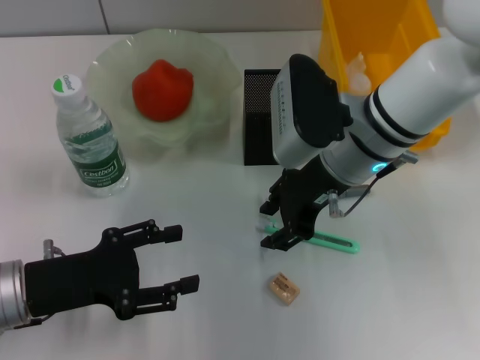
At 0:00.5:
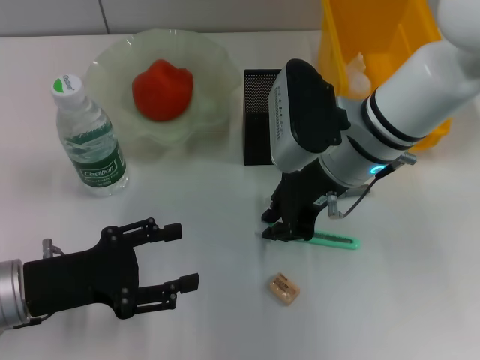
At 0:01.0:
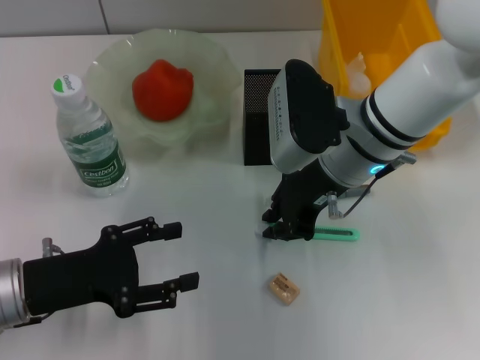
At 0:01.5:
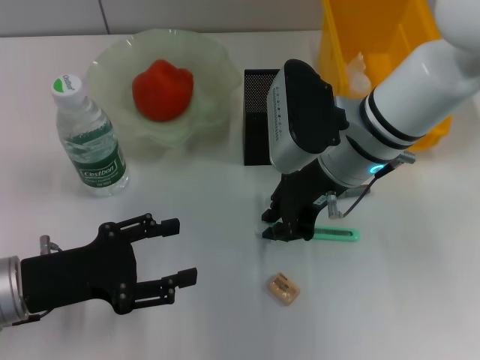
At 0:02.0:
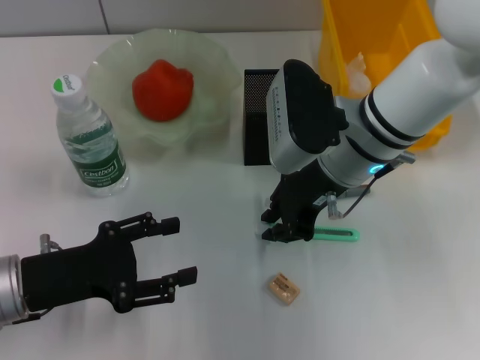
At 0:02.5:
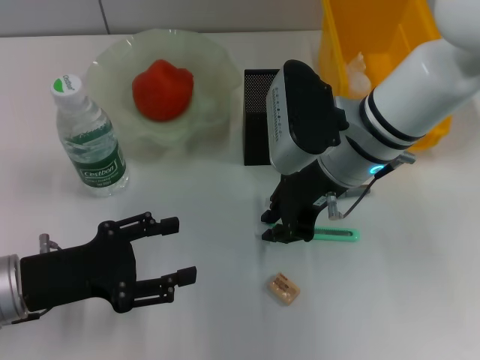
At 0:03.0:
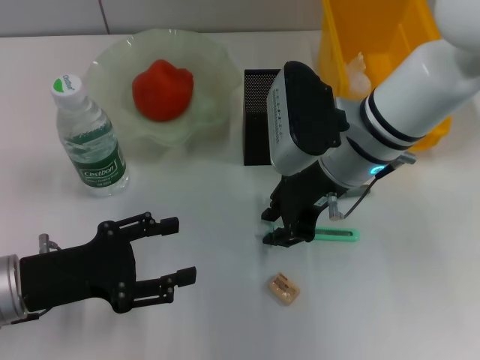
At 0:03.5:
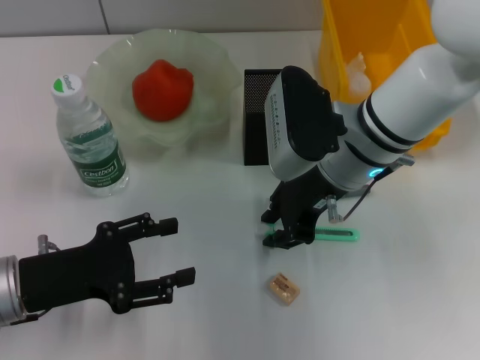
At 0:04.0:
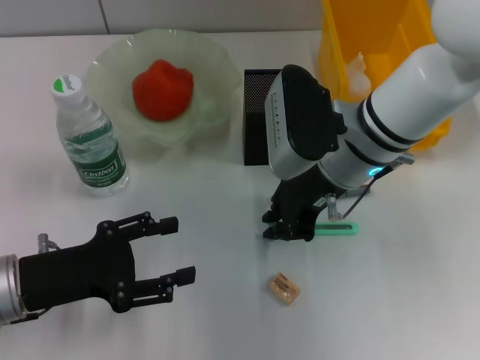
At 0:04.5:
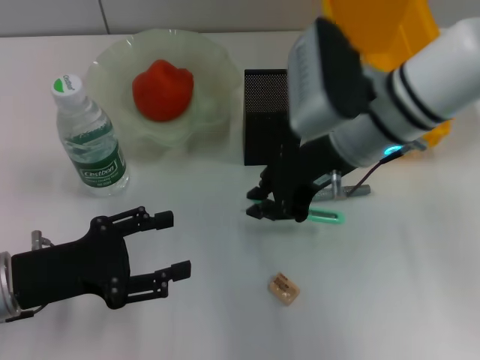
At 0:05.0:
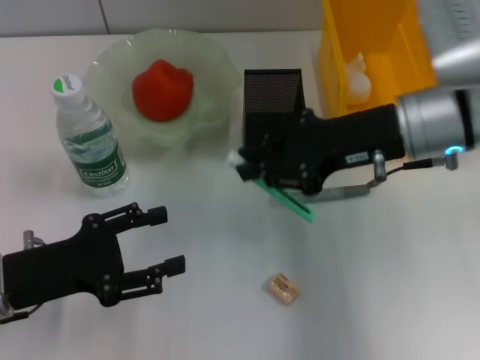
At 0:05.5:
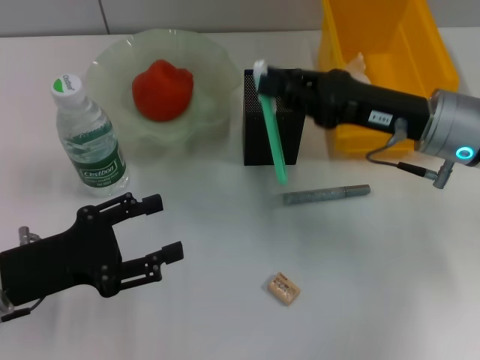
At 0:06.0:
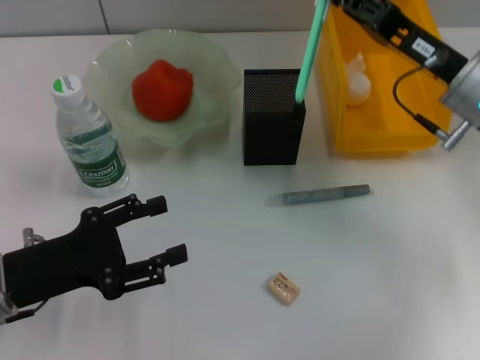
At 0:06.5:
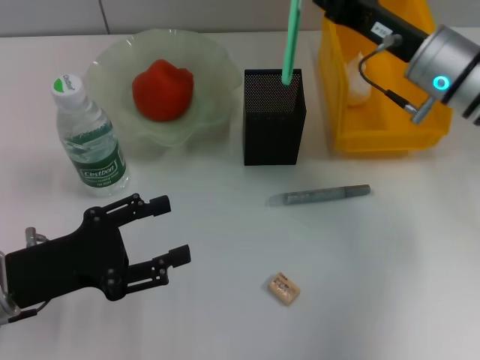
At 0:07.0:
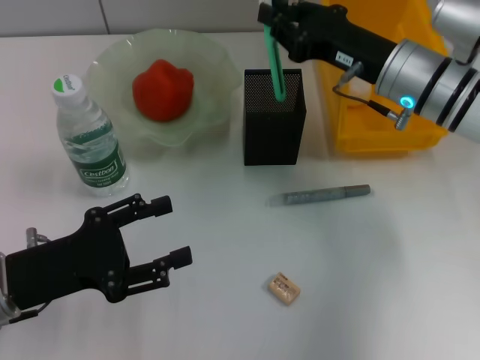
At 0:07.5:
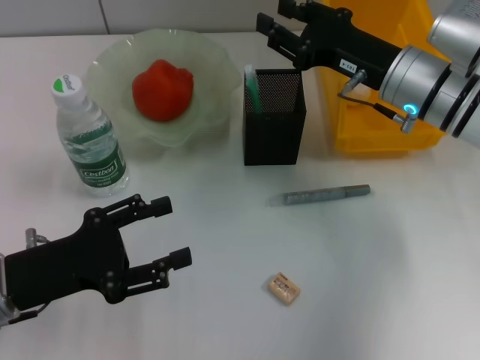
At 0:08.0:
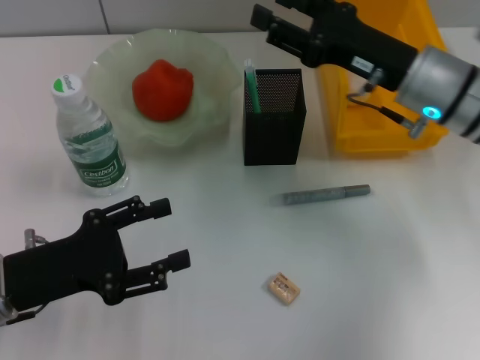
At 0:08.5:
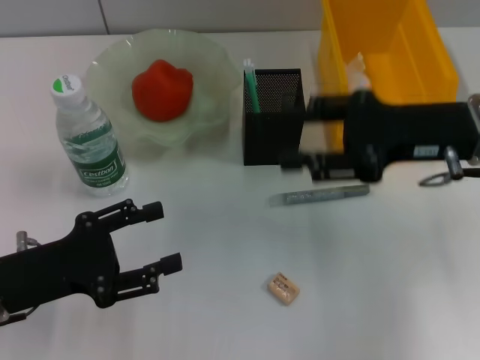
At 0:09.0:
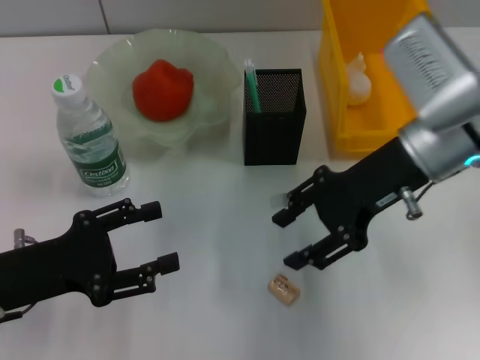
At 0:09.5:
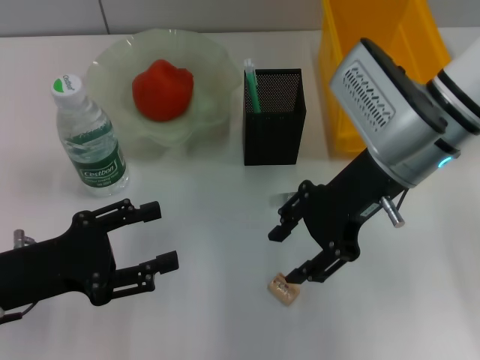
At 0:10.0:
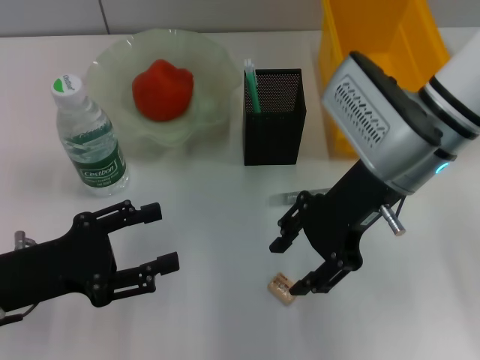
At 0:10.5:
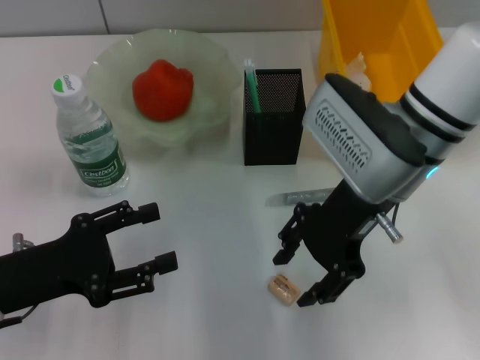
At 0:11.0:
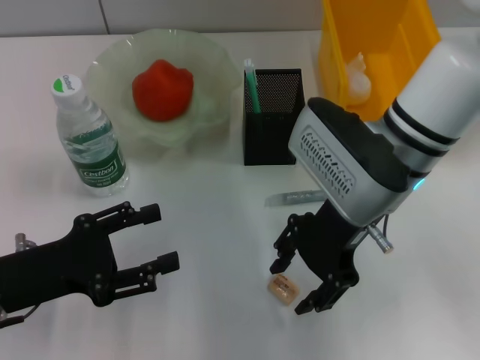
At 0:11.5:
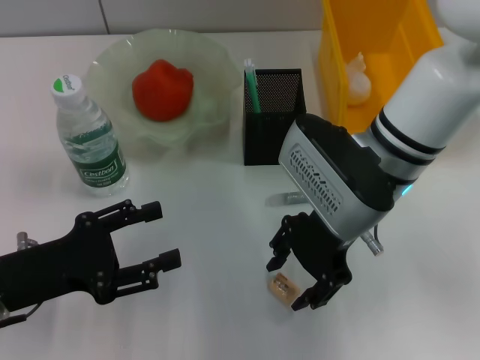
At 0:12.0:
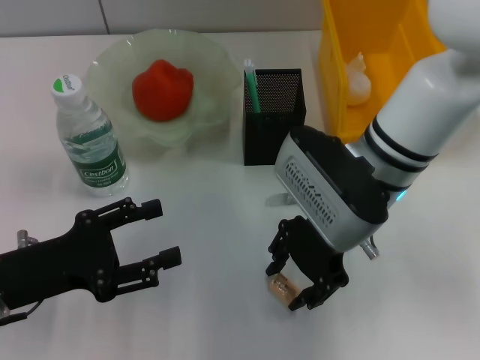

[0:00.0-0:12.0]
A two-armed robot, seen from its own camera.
Step, 0:00.0 to 0:03.5: Grab the blue utility knife with the right hand.
Step, 0:04.0 to 0:07.5: Place the blue utility knife into the pen holder with the right hand.
0:00.0 to 0:02.0: The right gripper closes.
0:02.0 to 0:04.0: Both grippers stay put.
0:04.0 to 0:06.0: The right gripper travels to the right by about 10 cm.
0:06.0 to 0:08.0: The right gripper opens.
0:08.0 to 0:10.0: The right gripper shifts approximately 5 cm to the left.
0:10.0 to 0:12.0: The grippers stay close to where they were, moving slightly.

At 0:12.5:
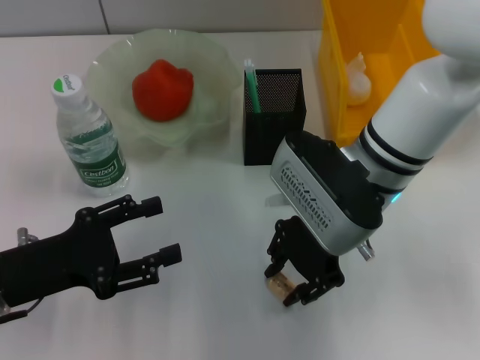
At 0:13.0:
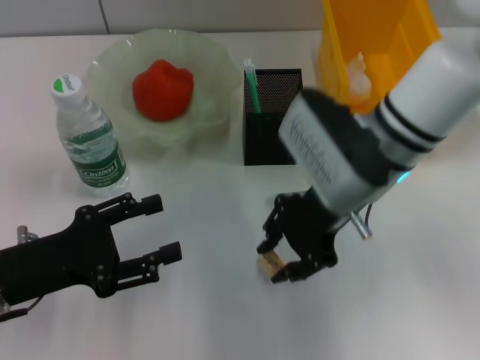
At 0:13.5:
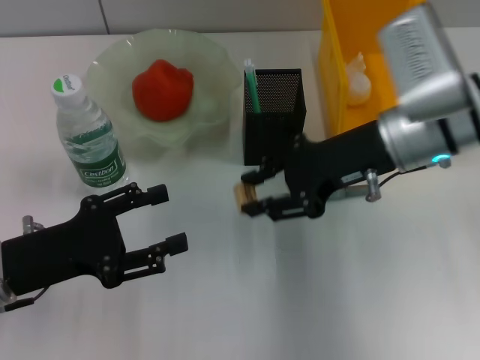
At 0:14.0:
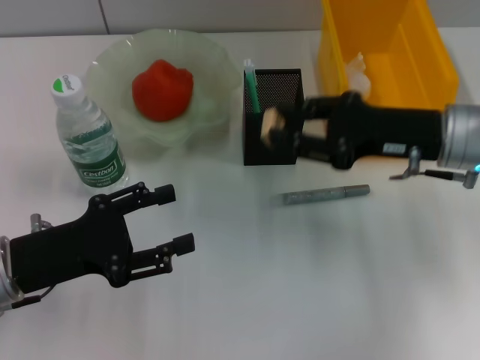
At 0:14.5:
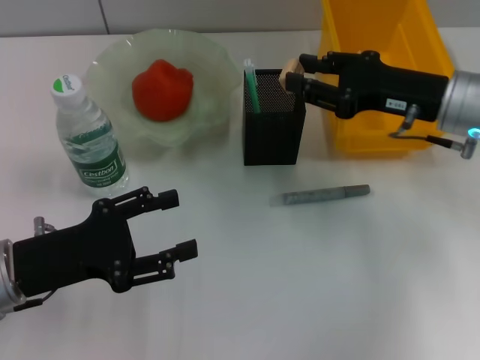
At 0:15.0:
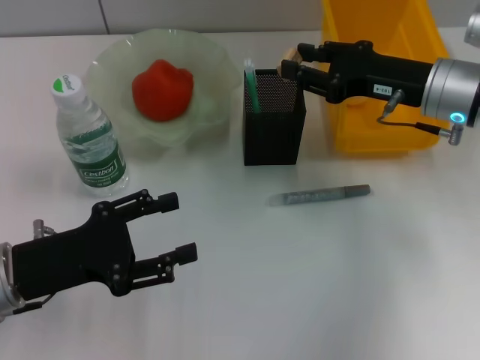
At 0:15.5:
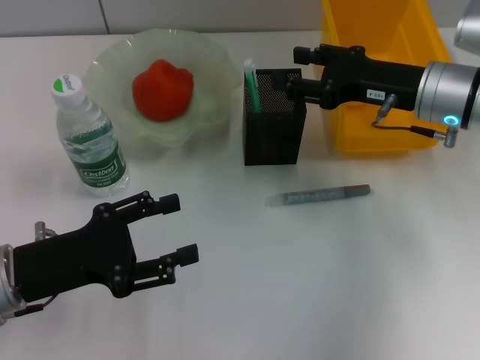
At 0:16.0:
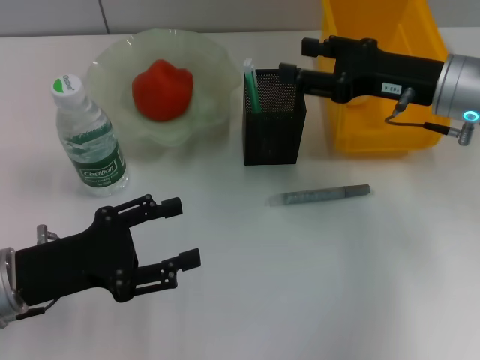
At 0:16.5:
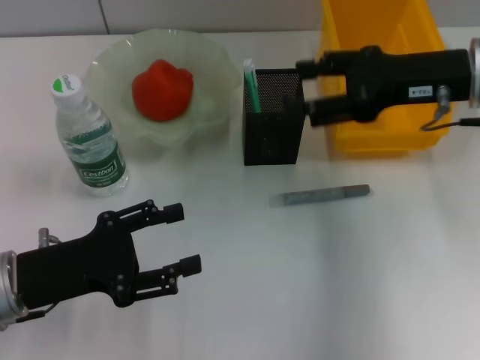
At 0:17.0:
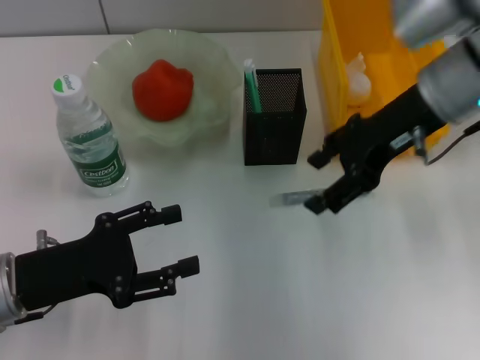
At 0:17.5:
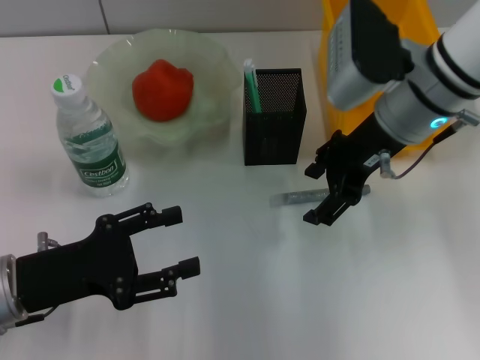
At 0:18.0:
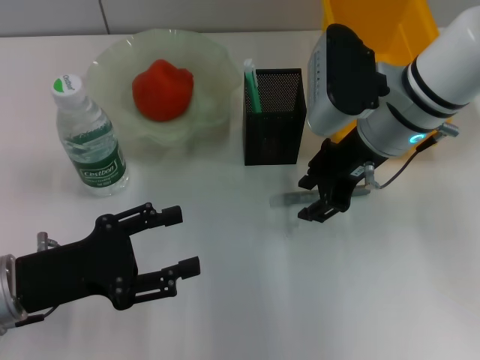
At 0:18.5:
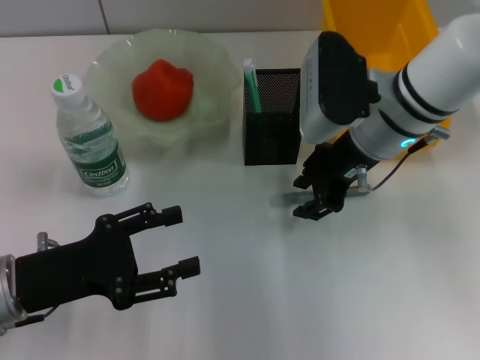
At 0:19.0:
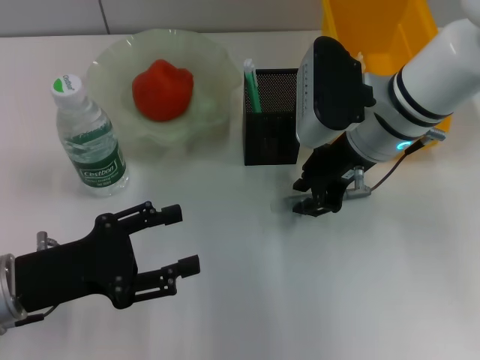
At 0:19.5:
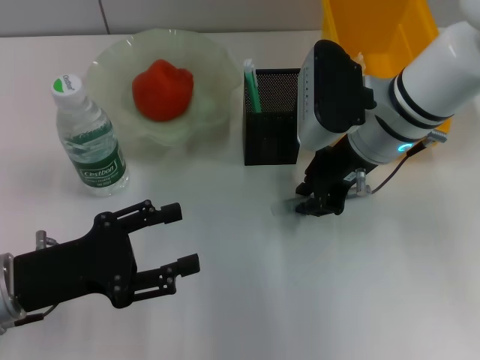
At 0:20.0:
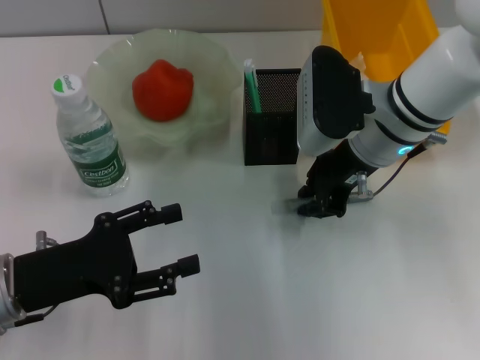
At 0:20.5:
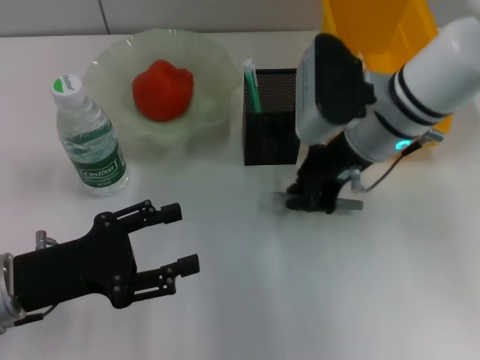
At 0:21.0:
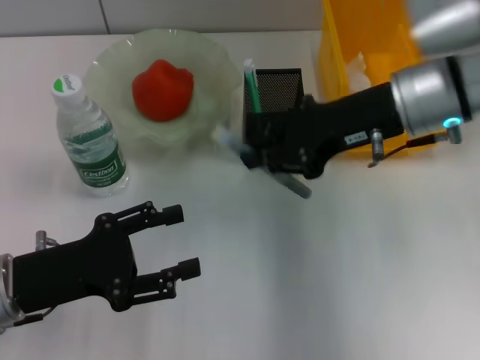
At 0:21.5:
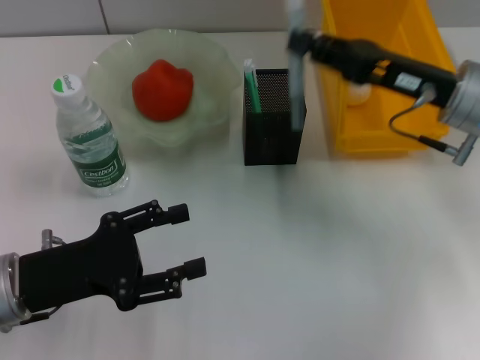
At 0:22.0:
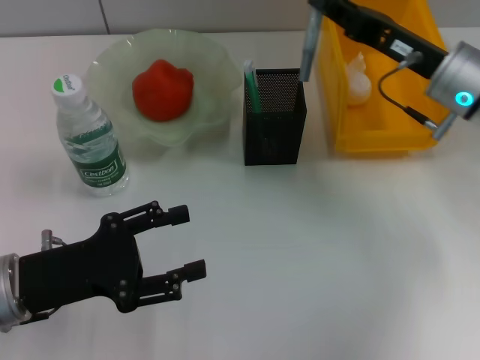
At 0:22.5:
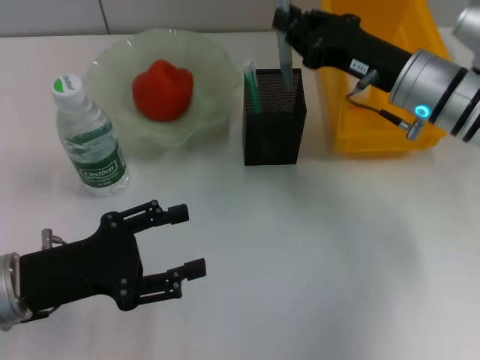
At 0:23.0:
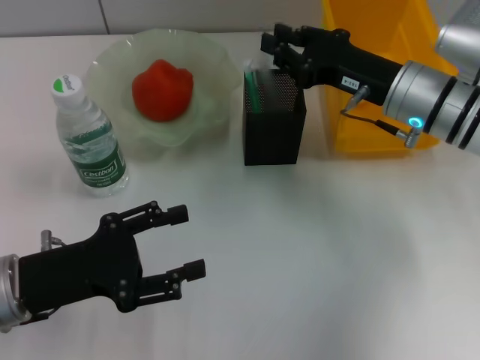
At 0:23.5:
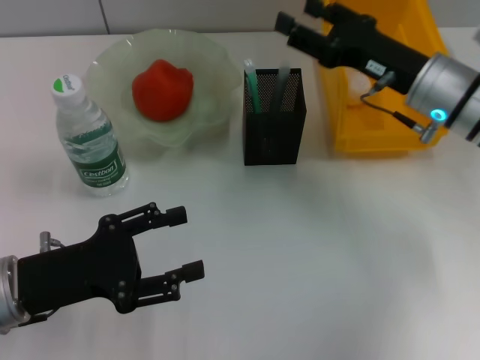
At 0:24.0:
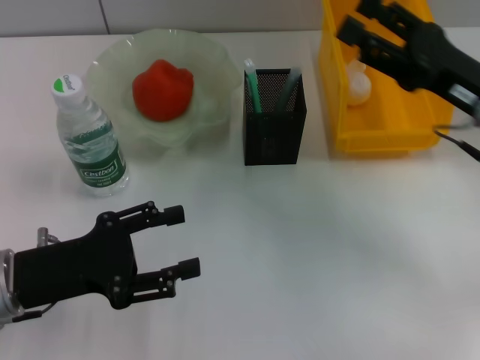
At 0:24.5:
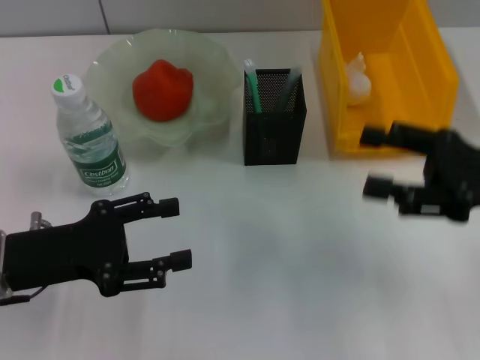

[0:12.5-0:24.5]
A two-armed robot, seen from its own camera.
Step, 0:13.0 to 0:15.0: Put the eraser into the pen holder with the right hand.
Step, 0:15.5 to 0:20.0: Grab the gray glue with the right hand.
Step, 0:20.5 to 0:23.0: Place the gray glue into the pen holder with the right hand.
0:12.5 to 0:14.5: The right gripper heads to the right, covering some 15 cm.
0:14.5 to 0:16.5: The right gripper heads upward, covering about 5 cm, and opens up.
0:16.5 to 0:18.5: The right gripper travels to the left and downward by roughly 10 cm, and closes.
0:18.5 to 0:20.5: The right gripper closes up.
0:20.5 to 0:22.5: The right gripper heads to the right, covering approximately 5 cm.
0:22.5 to 0:24.5: The right gripper heads backward and to the right, covering approximately 15 cm, and opens its fingers.

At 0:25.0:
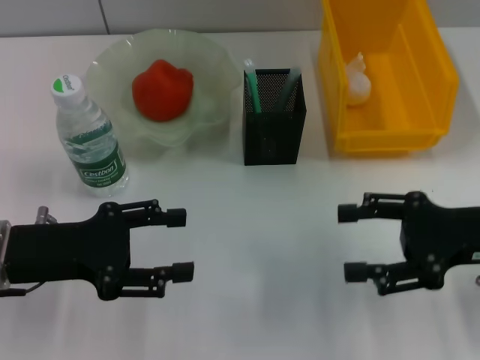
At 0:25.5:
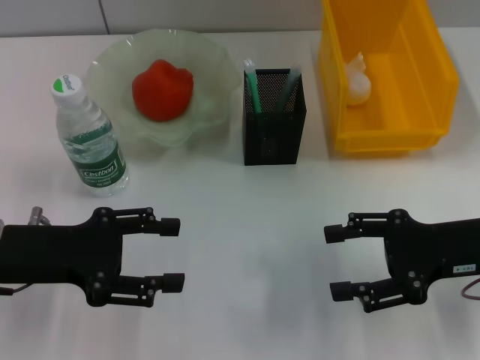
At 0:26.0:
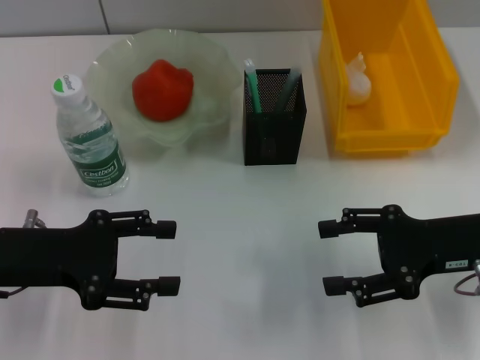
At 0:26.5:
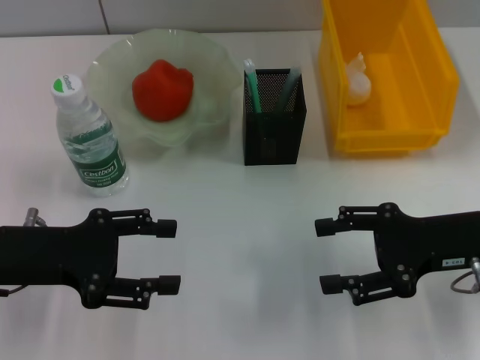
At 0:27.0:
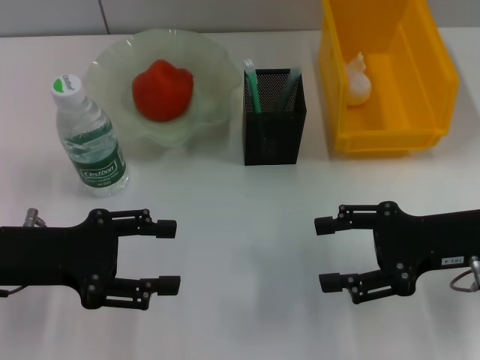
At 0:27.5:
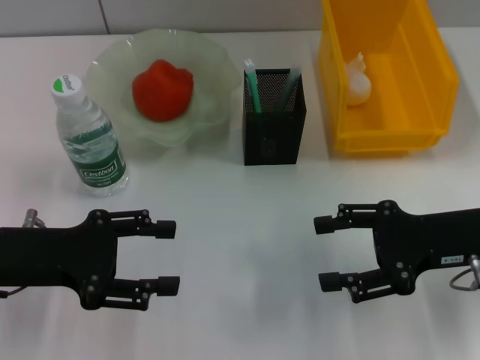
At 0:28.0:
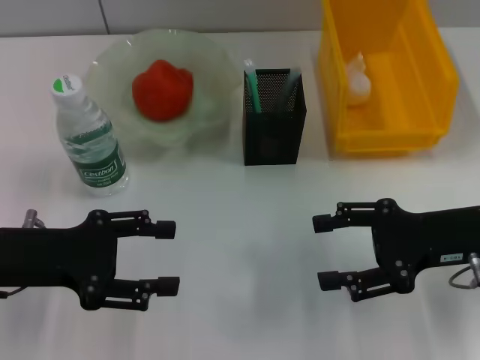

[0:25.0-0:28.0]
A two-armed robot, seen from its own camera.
0:25.0 to 0:26.5: The grippers move only a little.
0:26.5 to 0:28.0: Neither gripper changes place.
